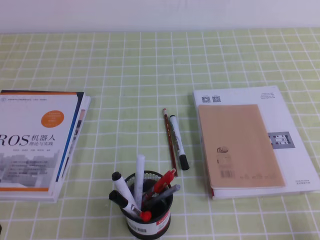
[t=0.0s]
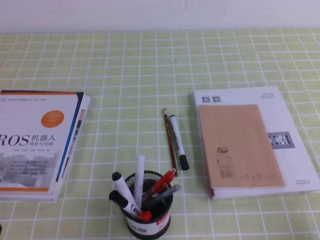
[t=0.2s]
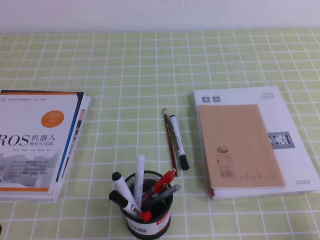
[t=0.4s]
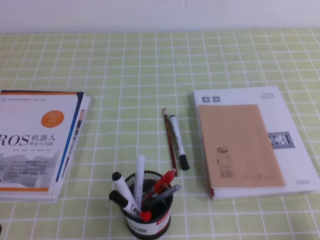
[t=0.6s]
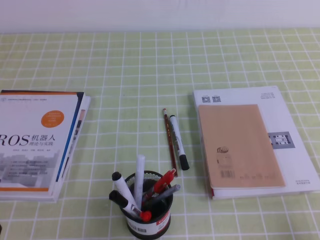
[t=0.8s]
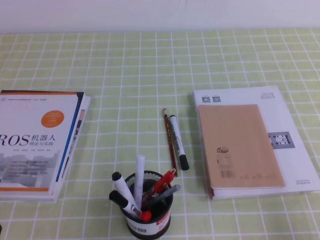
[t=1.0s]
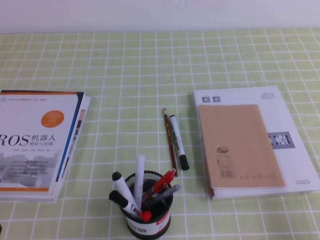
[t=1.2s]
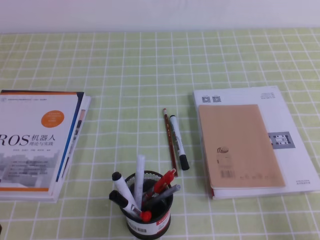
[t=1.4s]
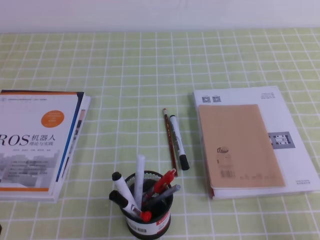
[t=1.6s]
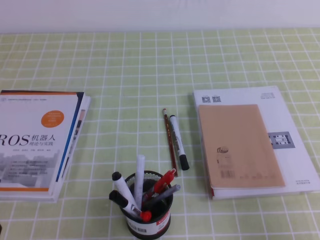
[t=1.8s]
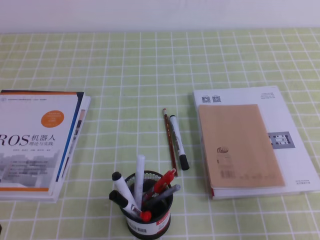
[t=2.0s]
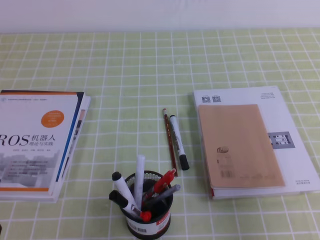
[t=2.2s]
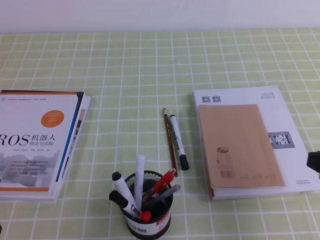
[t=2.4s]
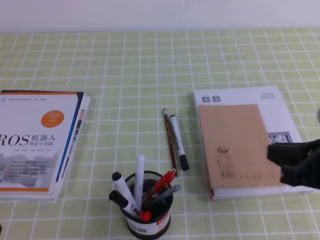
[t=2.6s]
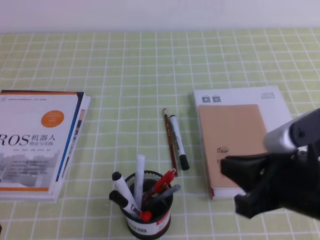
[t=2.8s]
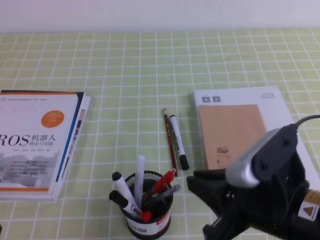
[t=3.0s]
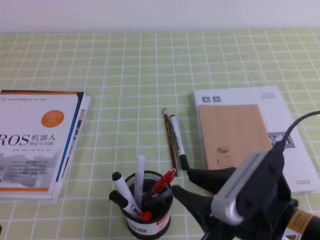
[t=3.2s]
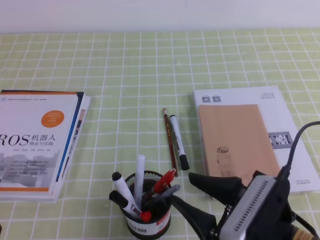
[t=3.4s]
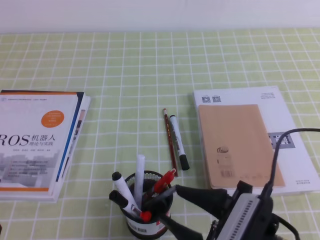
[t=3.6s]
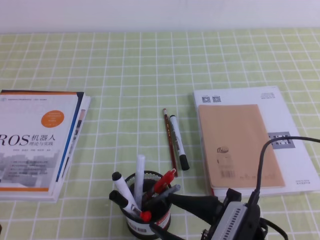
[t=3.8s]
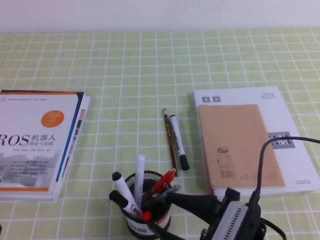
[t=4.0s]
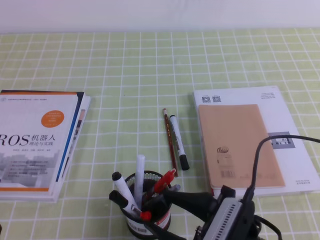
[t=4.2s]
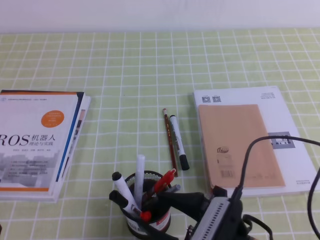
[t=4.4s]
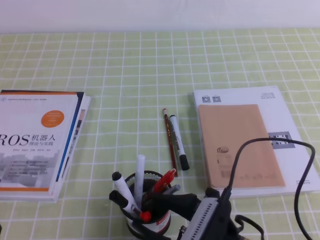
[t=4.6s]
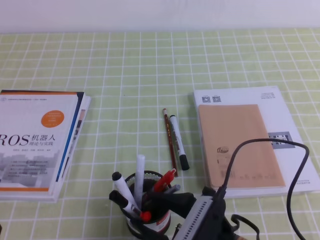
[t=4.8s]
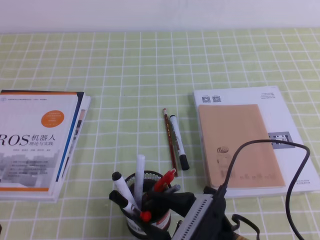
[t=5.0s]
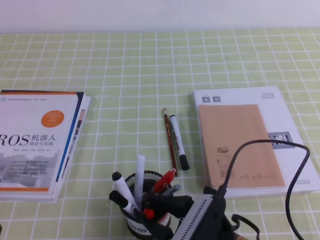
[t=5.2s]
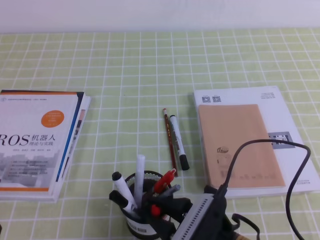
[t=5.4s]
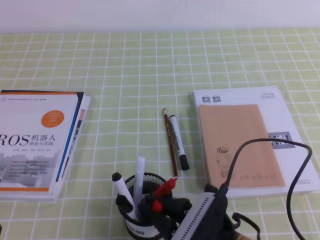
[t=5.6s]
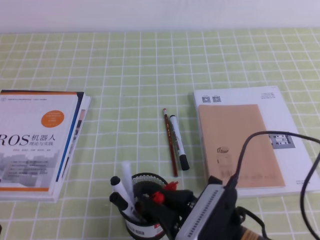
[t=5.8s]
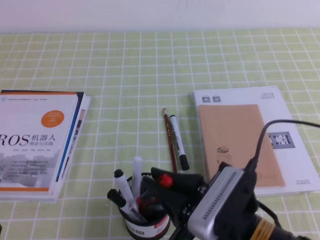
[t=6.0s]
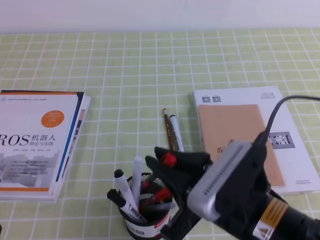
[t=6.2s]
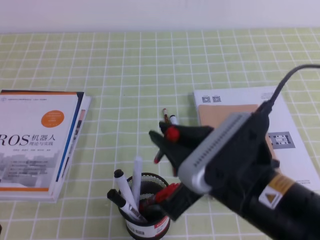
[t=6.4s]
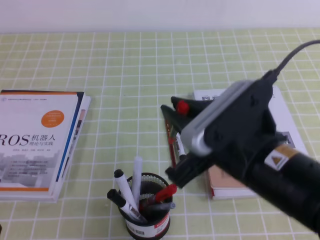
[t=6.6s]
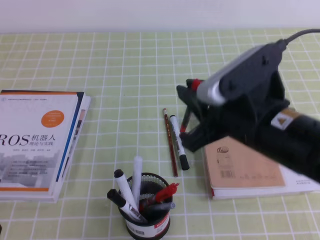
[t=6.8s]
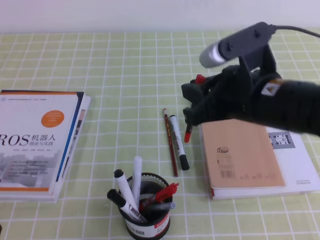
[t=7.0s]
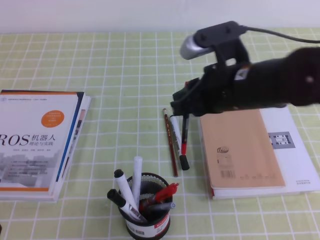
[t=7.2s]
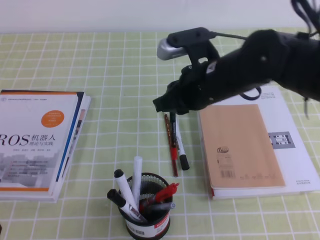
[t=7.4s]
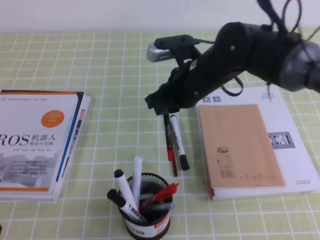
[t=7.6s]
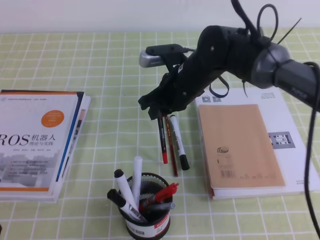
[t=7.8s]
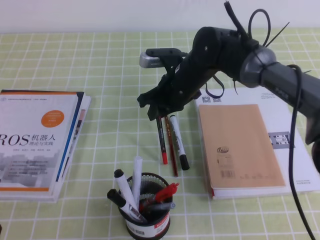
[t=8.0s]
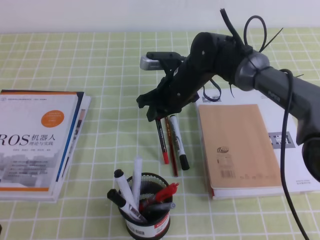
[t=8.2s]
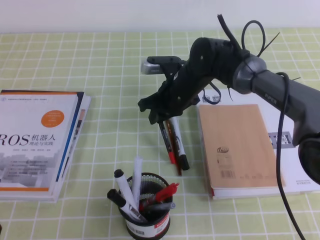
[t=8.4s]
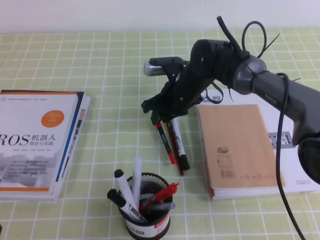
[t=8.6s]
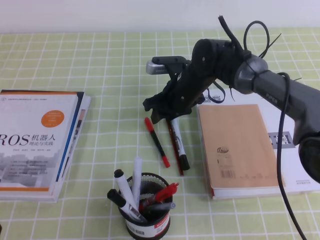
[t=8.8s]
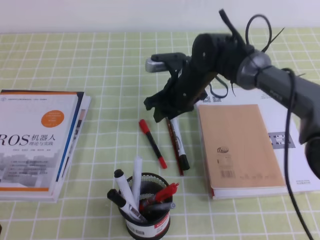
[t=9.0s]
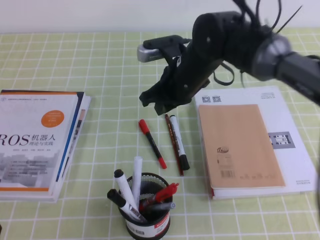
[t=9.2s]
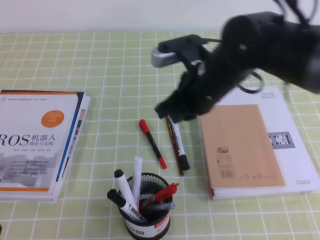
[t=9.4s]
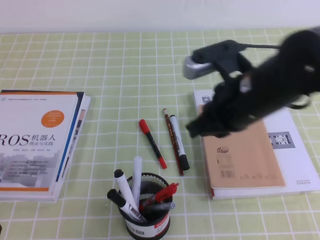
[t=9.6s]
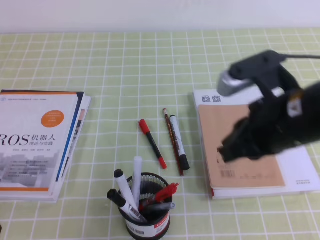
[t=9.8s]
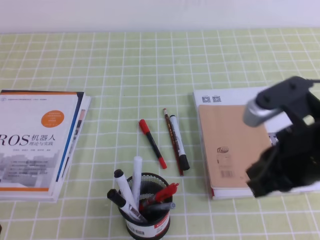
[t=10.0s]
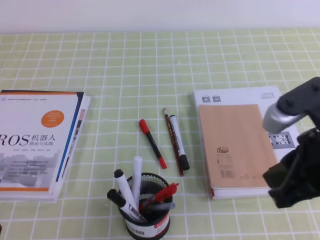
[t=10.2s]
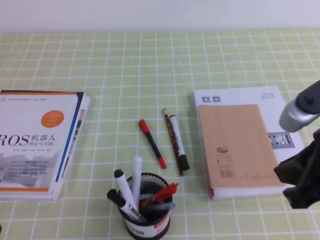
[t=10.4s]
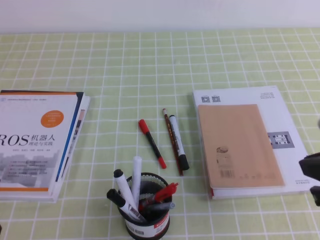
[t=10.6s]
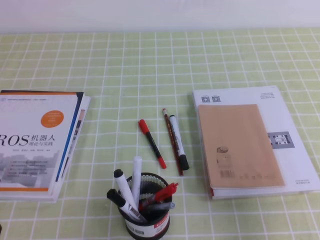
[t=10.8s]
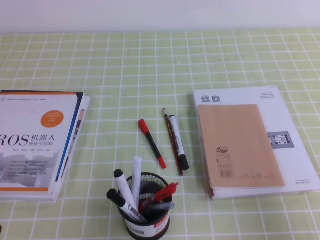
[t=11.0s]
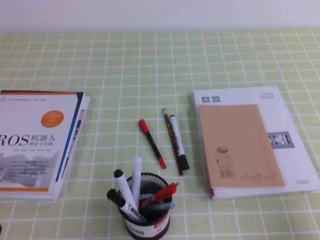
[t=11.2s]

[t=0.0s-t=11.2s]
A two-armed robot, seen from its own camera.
t=1.6s to t=3.2s: The right gripper moves to the left, some 20 cm, and opens up.
t=3.2s to t=4.8s: The right gripper goes roughly 10 cm downward and to the left, and opens.
t=4.8s to t=6.4s: The right gripper shifts some 15 cm upward, and closes.
t=6.4s to t=8.0s: The right gripper is displaced forward by approximately 25 cm.
t=8.0s to t=9.6s: The right gripper moves backward, upward and to the right, about 20 cm, and opens, then closes once more.
t=9.6s to t=11.2s: The right gripper is displaced backward, to the right and downward by roughly 30 cm.

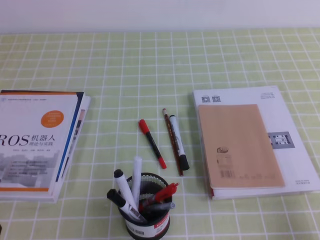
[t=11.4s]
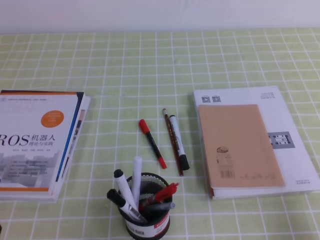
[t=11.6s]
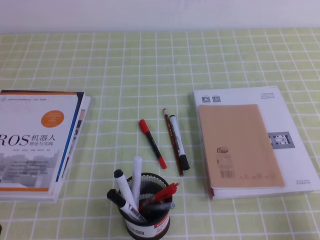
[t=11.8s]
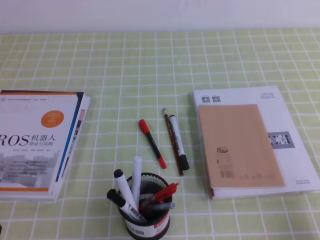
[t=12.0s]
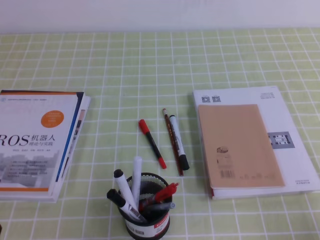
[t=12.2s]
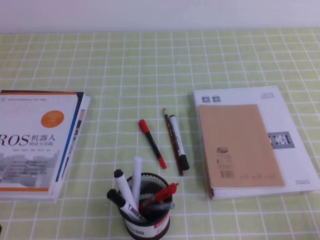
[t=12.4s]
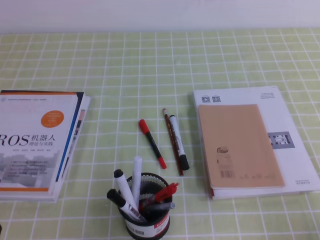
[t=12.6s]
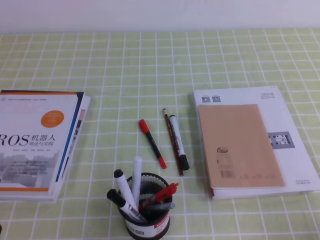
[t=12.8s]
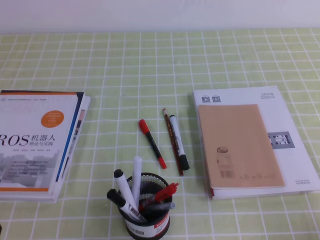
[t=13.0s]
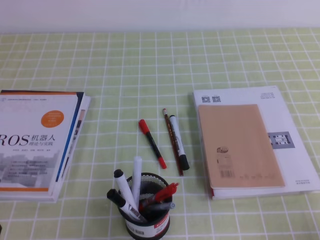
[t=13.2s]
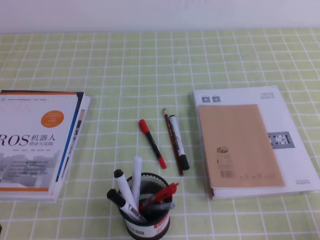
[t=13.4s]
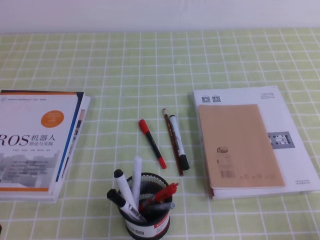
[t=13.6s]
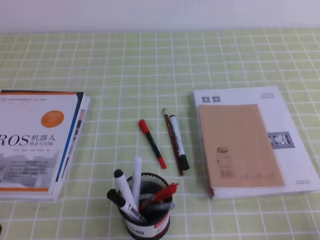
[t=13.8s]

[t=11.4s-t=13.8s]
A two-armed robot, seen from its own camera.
t=12.6s to t=13.8s: Neither gripper changes place.
